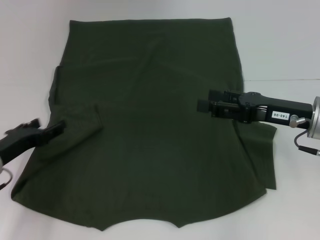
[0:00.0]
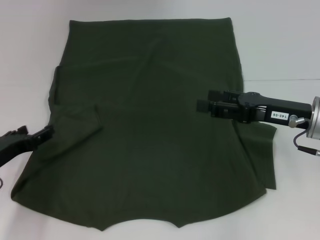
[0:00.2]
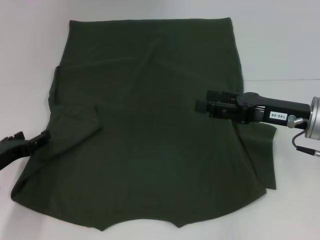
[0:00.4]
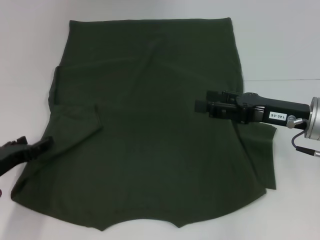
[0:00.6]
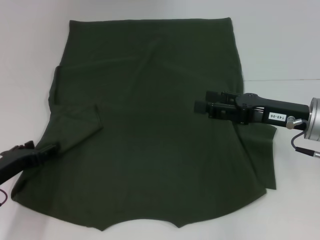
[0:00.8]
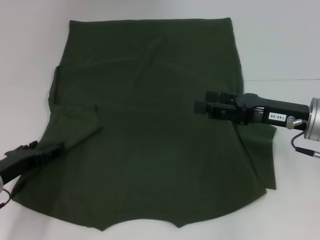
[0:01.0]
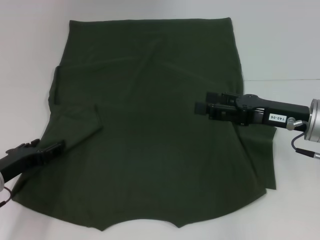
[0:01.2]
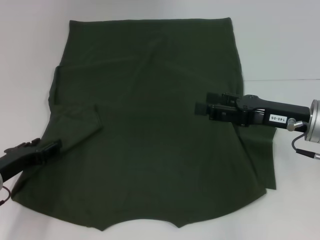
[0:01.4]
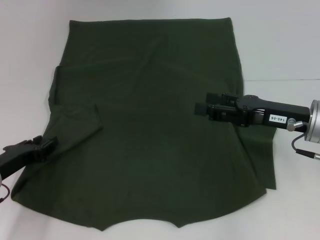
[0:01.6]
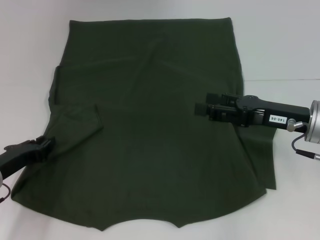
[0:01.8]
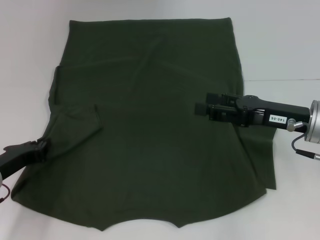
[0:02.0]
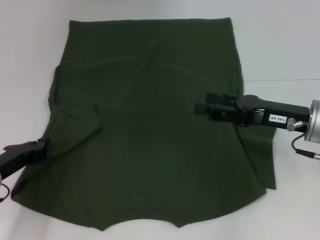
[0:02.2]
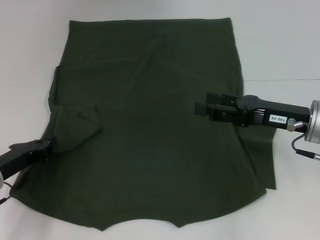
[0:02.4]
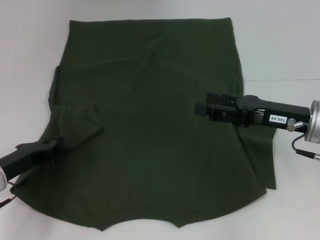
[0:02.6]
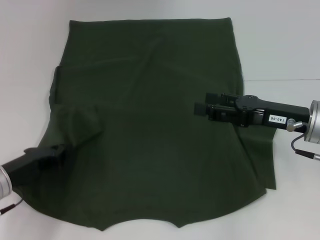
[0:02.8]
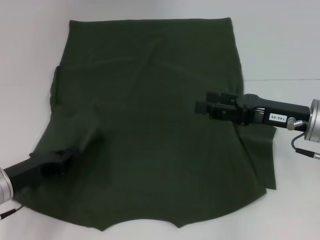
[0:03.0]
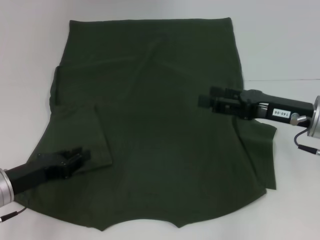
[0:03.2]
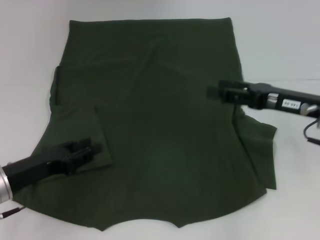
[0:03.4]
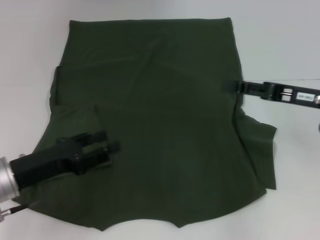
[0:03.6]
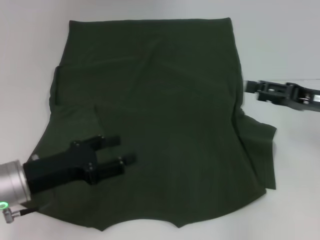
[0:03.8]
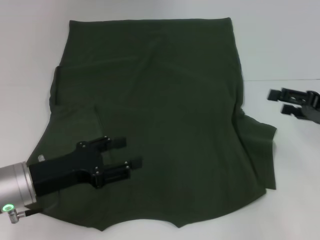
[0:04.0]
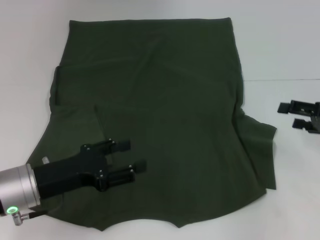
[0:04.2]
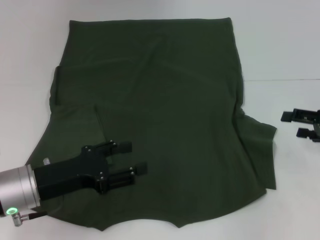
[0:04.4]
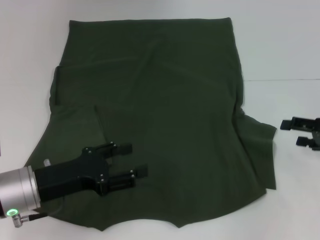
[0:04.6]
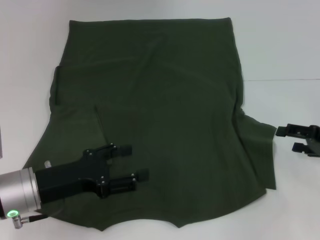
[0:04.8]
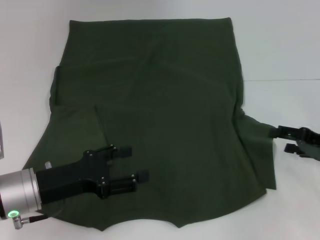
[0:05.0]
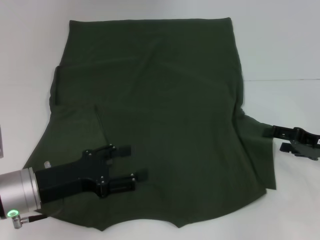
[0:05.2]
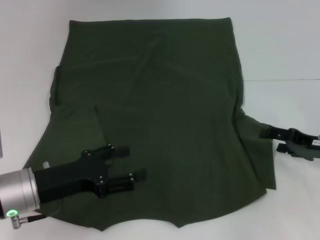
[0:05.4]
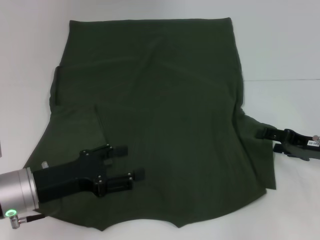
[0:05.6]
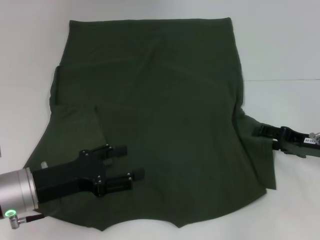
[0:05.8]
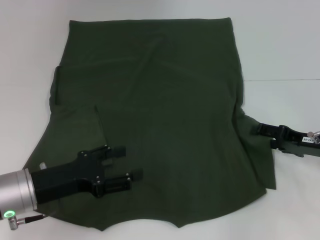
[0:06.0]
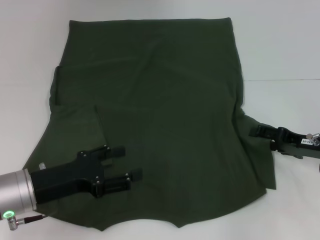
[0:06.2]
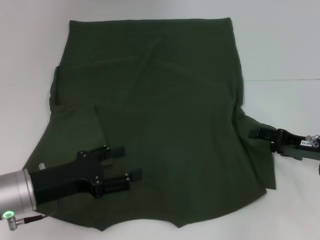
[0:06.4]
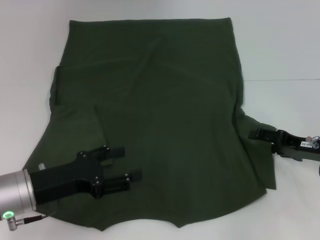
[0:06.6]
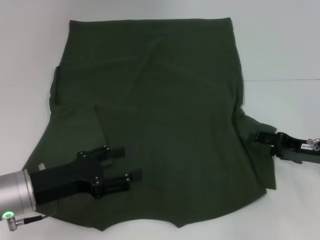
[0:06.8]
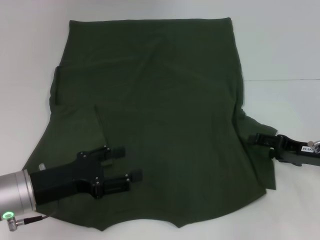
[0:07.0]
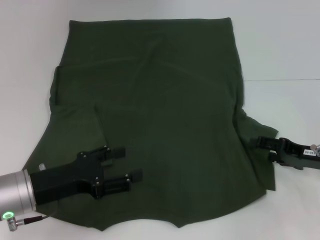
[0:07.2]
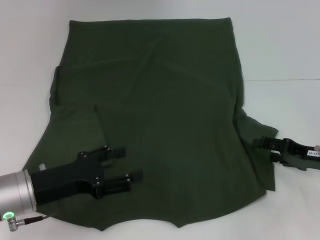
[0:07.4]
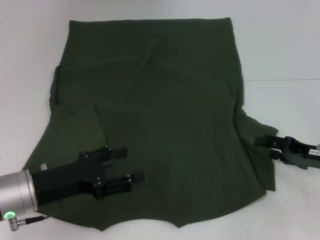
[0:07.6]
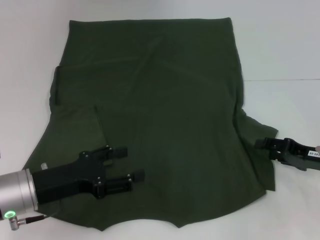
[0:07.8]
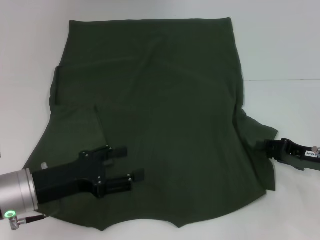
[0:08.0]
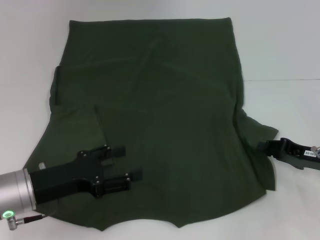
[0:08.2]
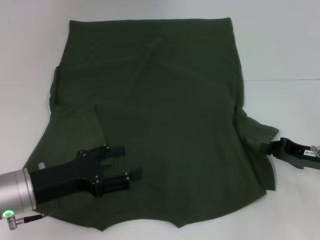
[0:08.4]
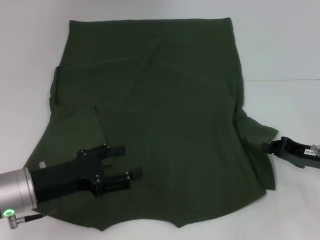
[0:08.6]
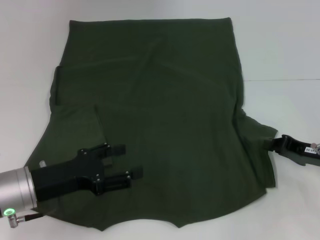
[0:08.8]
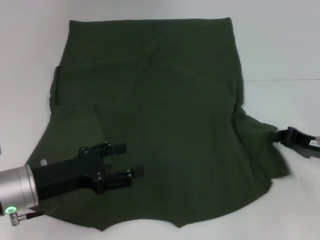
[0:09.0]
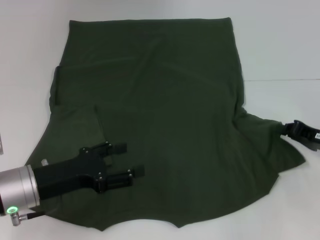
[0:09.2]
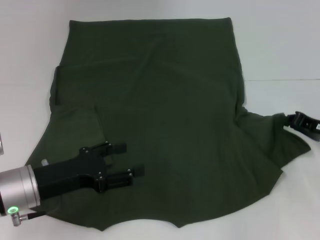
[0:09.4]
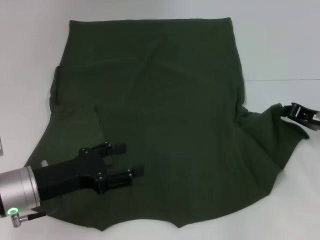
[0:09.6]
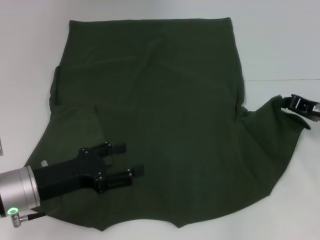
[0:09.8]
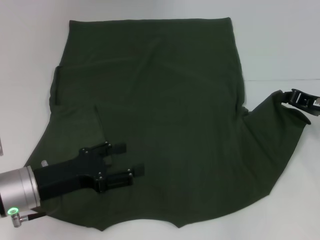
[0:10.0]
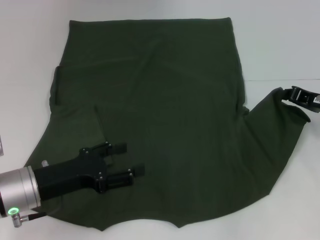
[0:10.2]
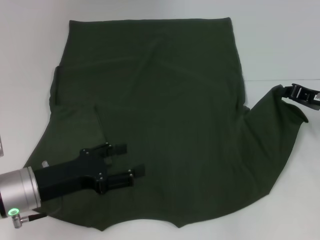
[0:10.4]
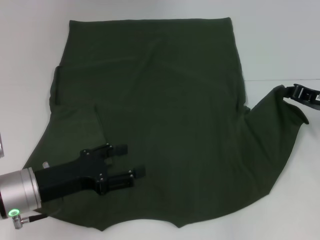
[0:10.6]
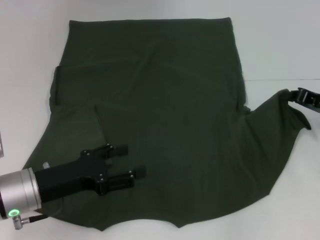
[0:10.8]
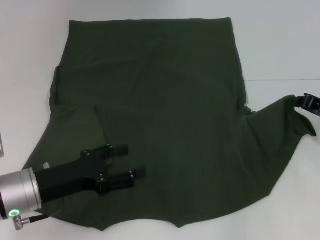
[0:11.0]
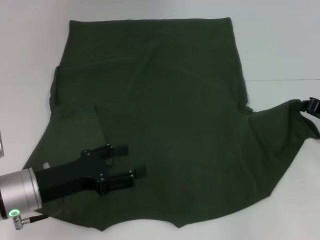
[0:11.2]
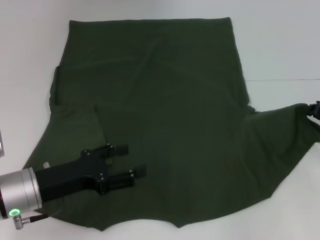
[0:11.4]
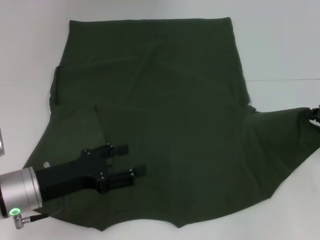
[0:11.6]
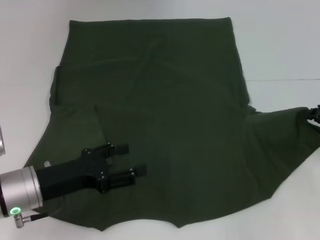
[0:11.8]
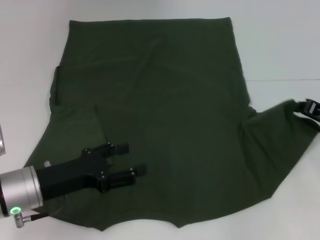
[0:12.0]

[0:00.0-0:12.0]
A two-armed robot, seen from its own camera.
Step, 0:00.0 to 0:03.4: Fold the bottom left sleeve with your left hand.
0:00.0 to 0:01.6: The grippers make only small movements.
0:01.6 to 0:03.0: The left gripper closes its fingers.
0:03.0 to 0:04.4: The right gripper heads to the right, covering some 10 cm. Meanwhile the left gripper travels to the right by some 5 cm, and opens its fingers.
0:04.4 to 0:06.0: The right gripper moves downward, about 5 cm.
0:06.0 to 0:07.6: There are only small adjustments of the grippers.
0:07.6 to 0:09.0: The right gripper closes its fingers.
0:09.0 to 0:10.4: The right gripper heads forward, covering about 5 cm.
0:10.4 to 0:12.0: The grippers move only a little.

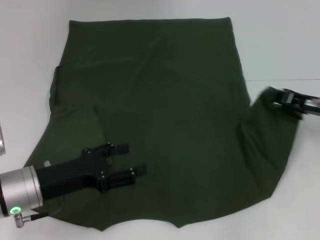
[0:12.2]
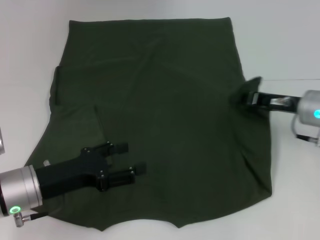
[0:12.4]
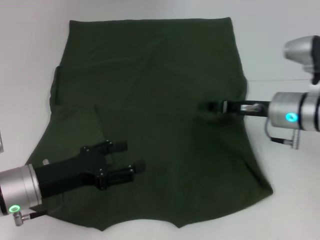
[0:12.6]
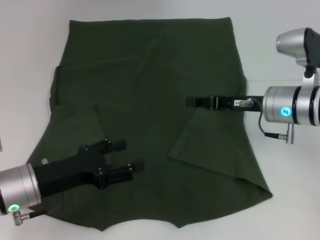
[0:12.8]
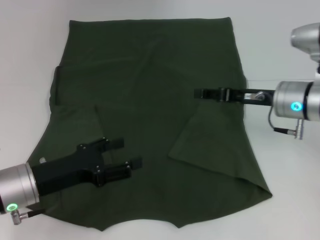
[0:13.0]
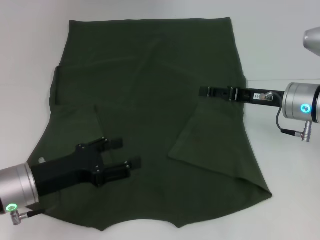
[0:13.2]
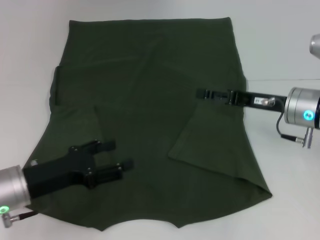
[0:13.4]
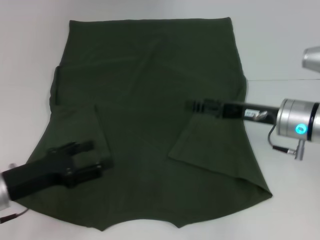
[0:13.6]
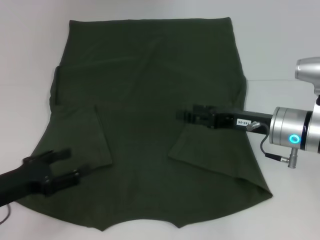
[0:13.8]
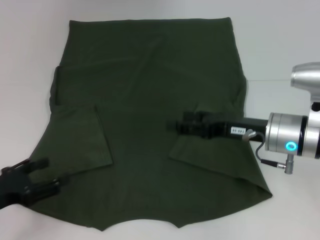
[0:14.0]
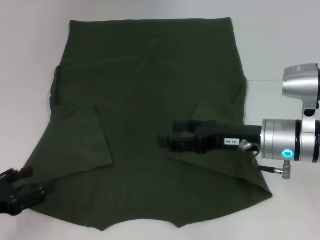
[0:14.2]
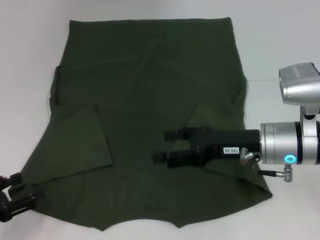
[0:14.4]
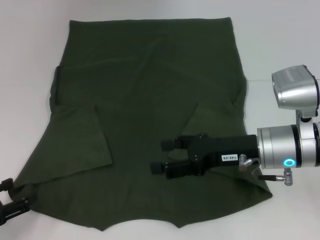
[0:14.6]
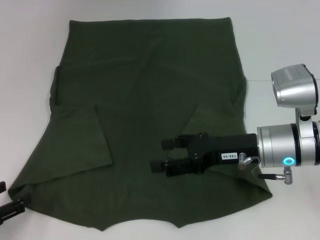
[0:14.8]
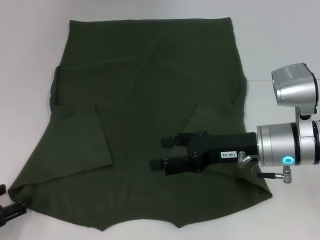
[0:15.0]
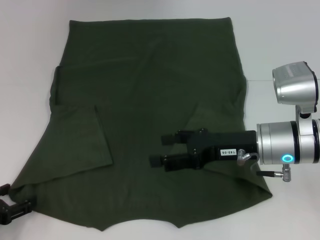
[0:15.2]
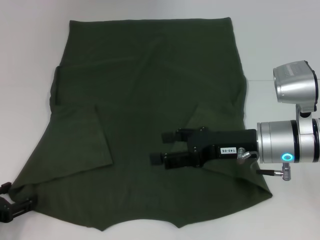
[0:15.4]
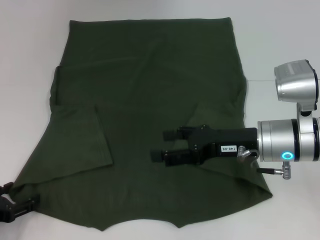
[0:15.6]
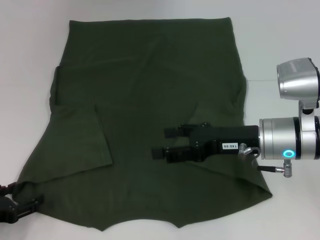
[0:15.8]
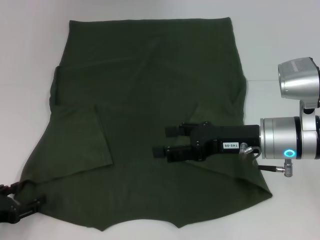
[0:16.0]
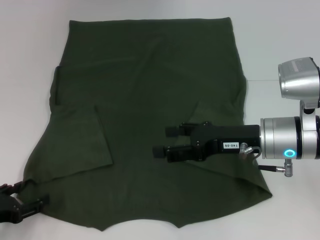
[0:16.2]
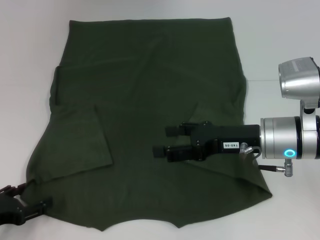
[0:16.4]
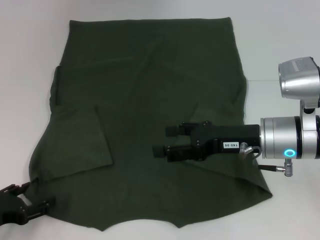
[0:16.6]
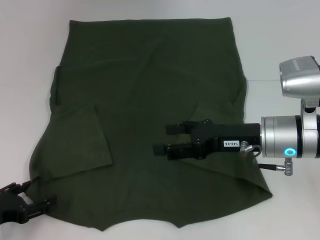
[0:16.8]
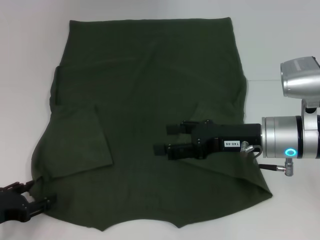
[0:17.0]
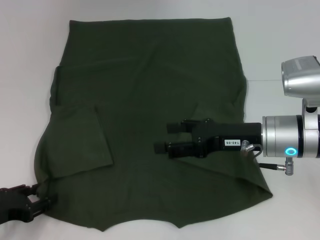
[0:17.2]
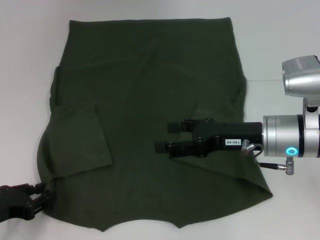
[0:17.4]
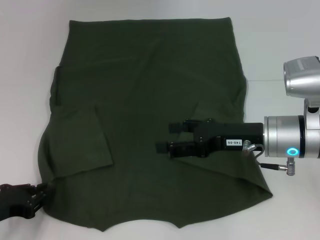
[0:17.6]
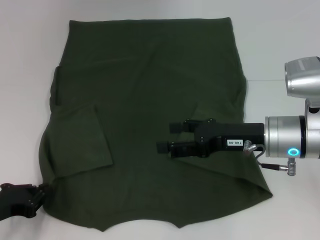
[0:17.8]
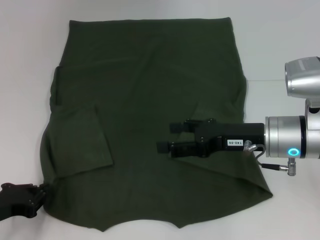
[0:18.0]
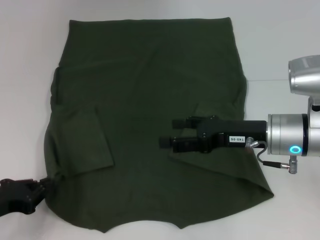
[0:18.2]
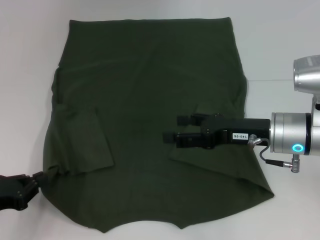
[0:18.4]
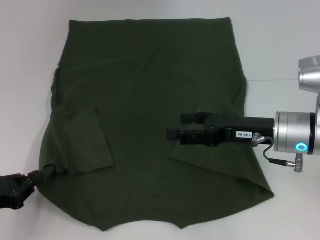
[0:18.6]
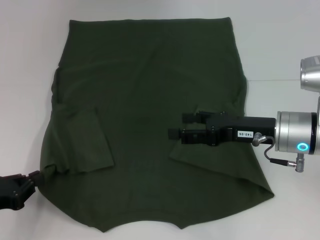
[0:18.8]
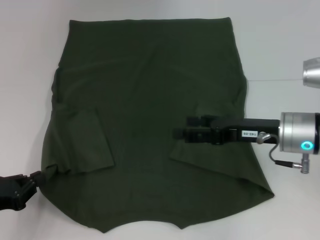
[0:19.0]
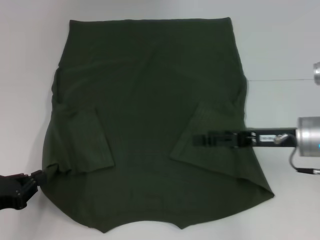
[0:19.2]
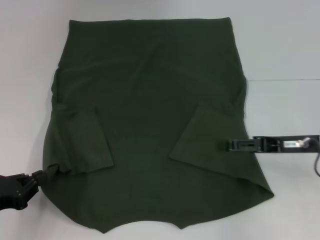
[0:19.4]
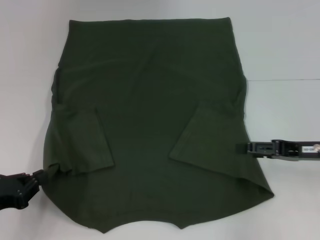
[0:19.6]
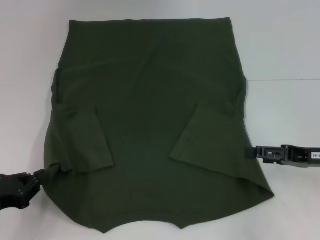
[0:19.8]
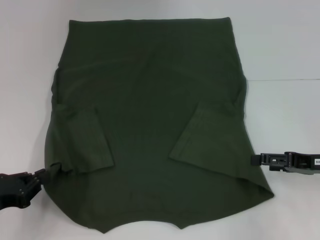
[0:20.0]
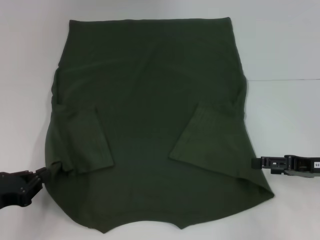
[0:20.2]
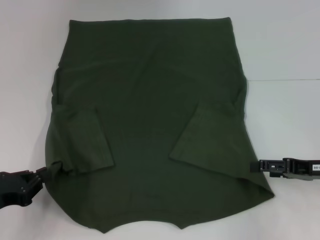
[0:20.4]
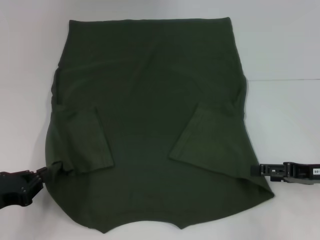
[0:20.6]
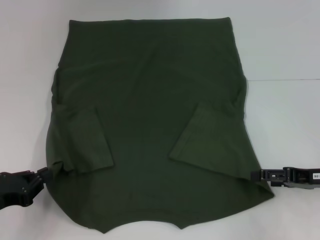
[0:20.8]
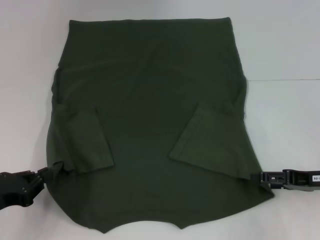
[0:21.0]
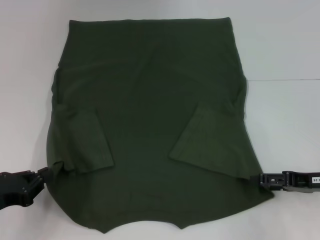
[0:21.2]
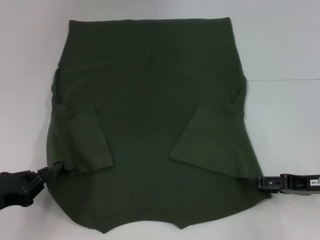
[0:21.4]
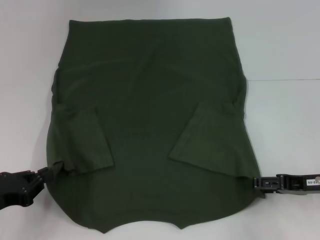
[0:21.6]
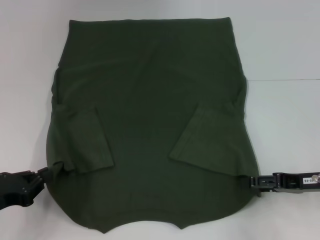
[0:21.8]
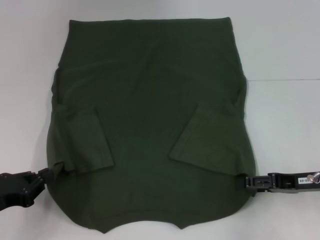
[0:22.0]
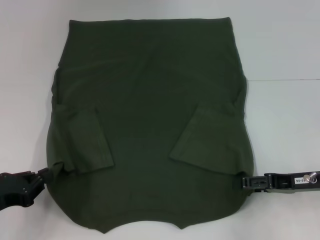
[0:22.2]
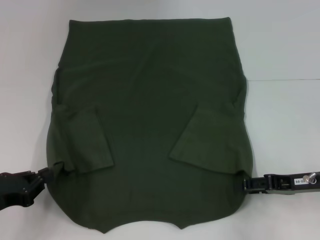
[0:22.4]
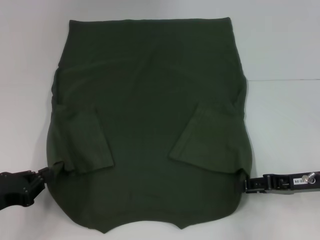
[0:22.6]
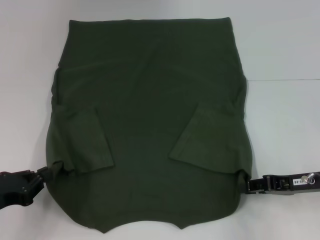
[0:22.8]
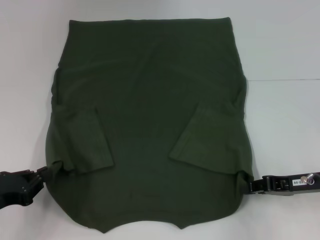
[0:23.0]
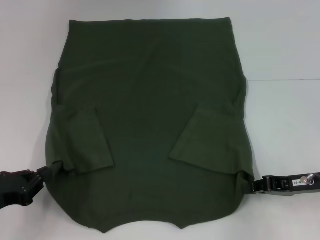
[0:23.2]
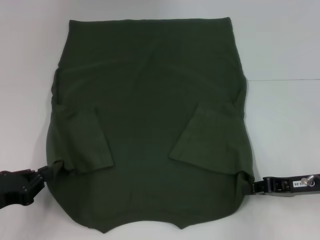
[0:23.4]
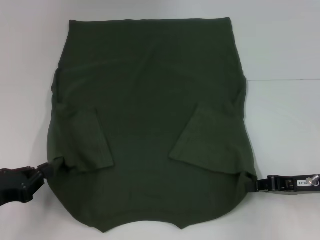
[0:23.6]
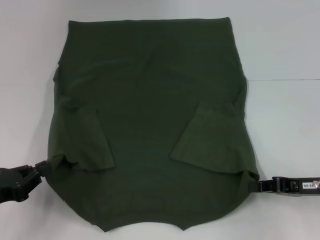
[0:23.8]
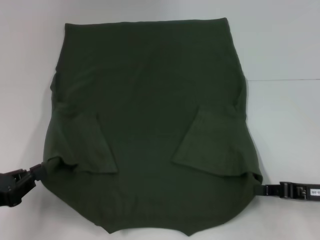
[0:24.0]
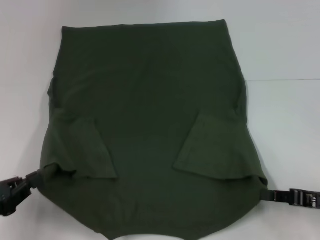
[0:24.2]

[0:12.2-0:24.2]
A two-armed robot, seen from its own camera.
Step, 0:13.8 to 0:18.0: Grab the bottom left corner with your left hand.
Step, 0:18.2 to 0:23.8: Grab the bottom right corner with your right hand.
0:12.2 to 0:13.8: The two grippers go about 10 cm to the left. The right gripper opens.
0:13.8 to 0:15.2: The left gripper is displaced to the left by approximately 5 cm.
0:15.2 to 0:16.6: There are only small adjustments of the grippers.
0:16.6 to 0:18.2: The left gripper closes its fingers.
0:18.2 to 0:19.8: The right gripper moves to the right, approximately 10 cm.
0:19.8 to 0:22.6: The grippers move only a little.
0:22.6 to 0:24.2: The right gripper ends up roughly 5 cm from where it was, and closes its fingers.
